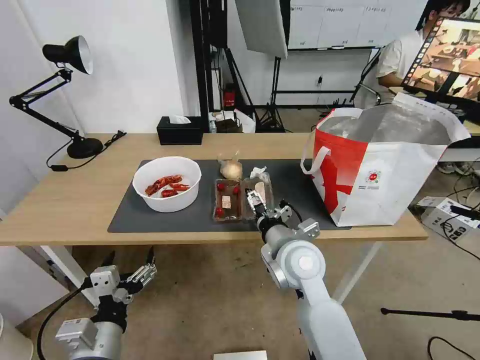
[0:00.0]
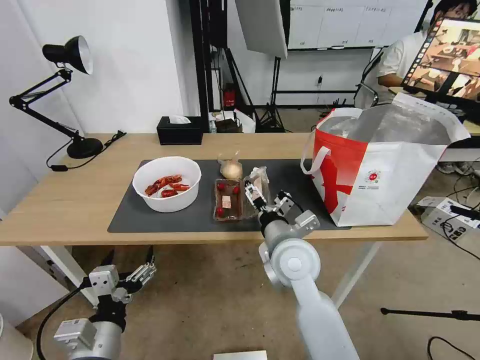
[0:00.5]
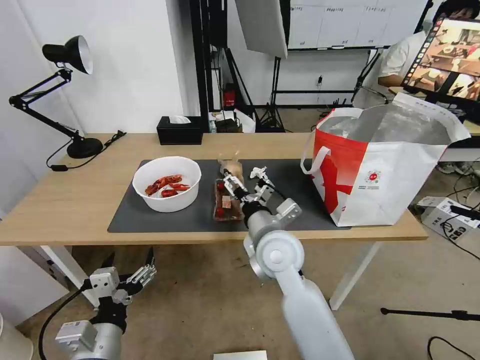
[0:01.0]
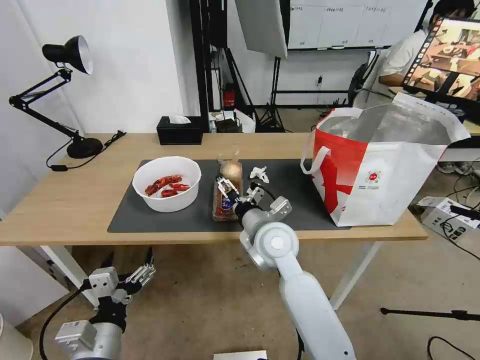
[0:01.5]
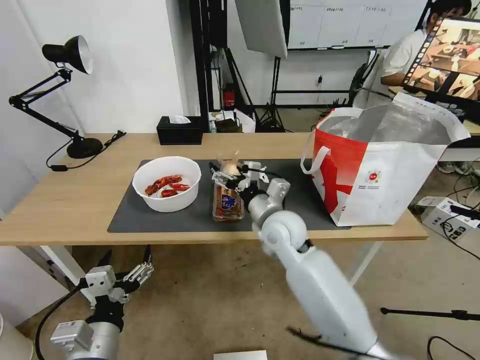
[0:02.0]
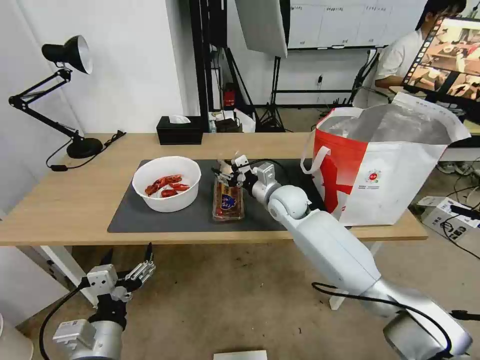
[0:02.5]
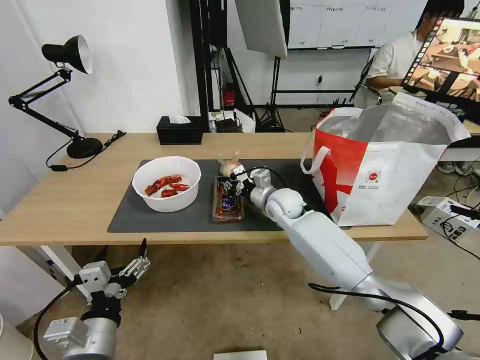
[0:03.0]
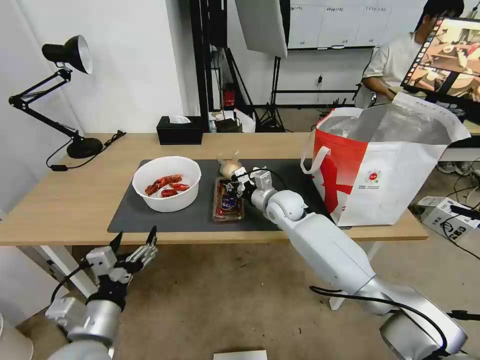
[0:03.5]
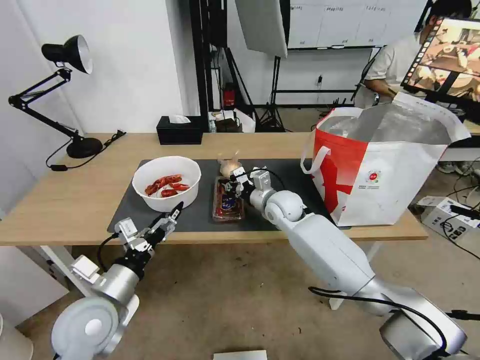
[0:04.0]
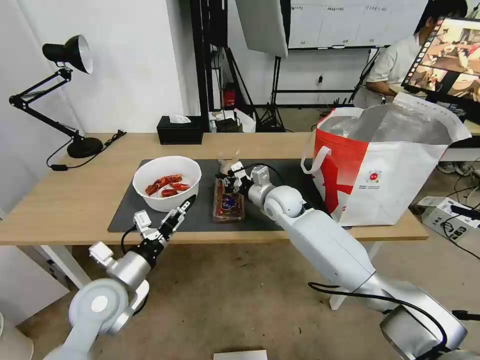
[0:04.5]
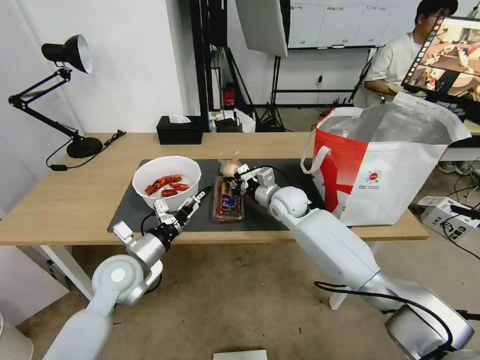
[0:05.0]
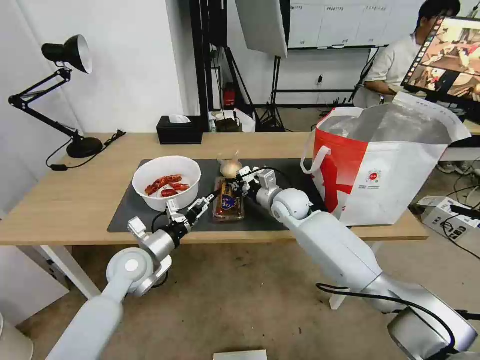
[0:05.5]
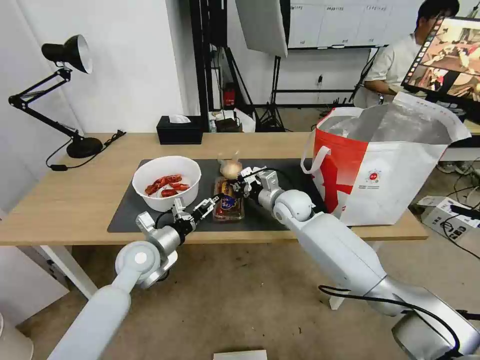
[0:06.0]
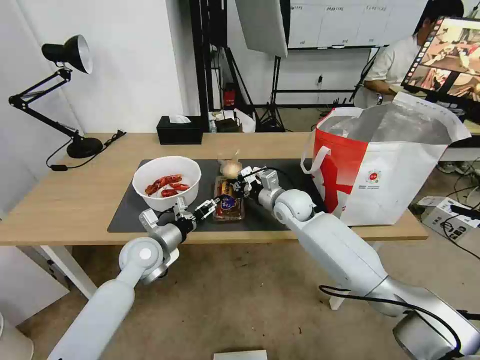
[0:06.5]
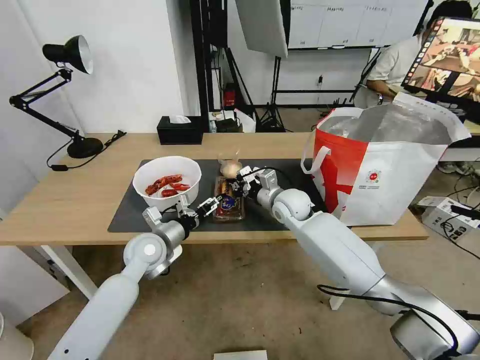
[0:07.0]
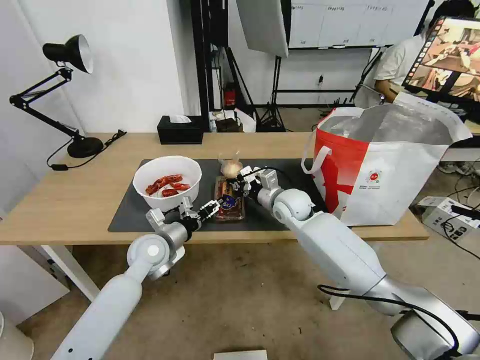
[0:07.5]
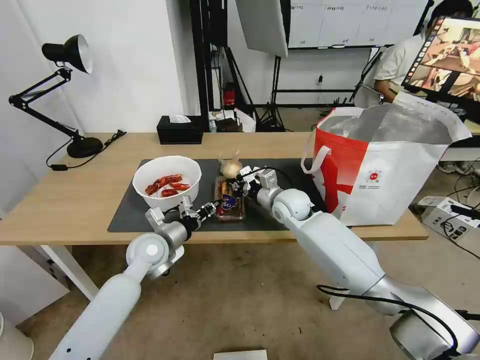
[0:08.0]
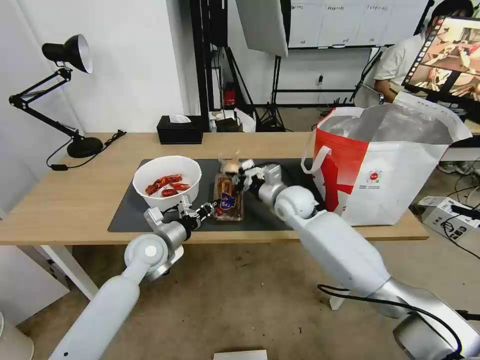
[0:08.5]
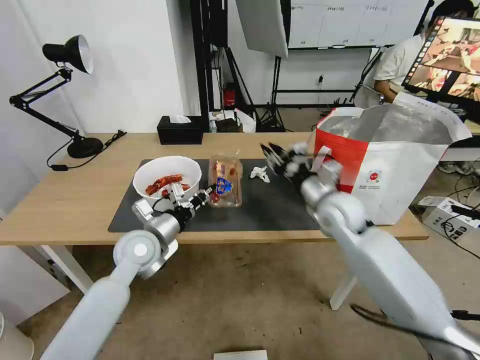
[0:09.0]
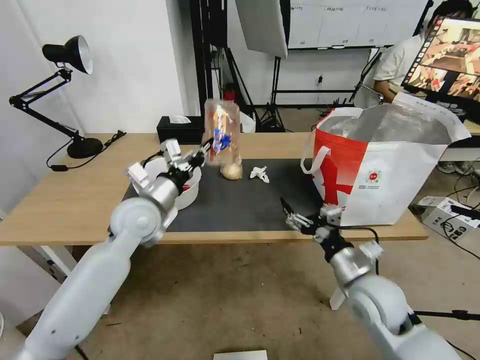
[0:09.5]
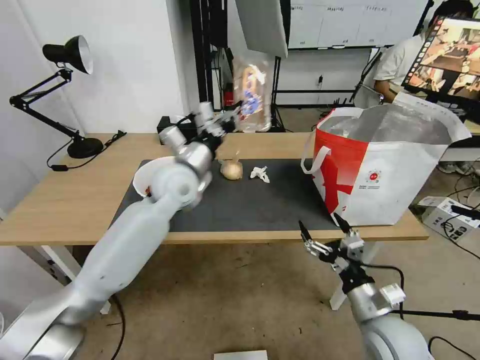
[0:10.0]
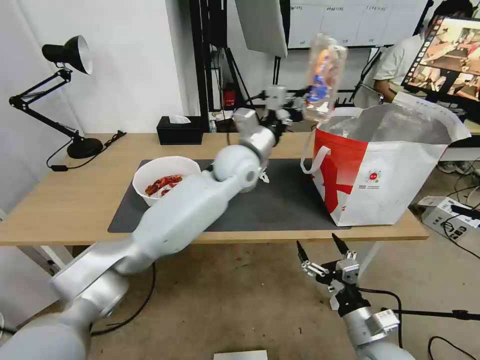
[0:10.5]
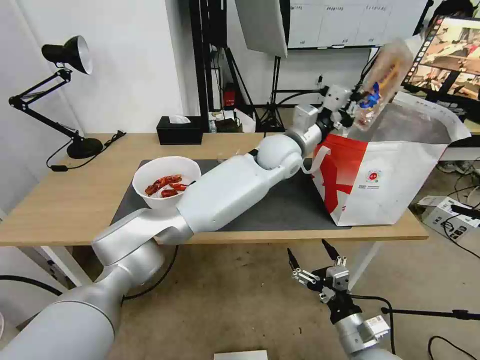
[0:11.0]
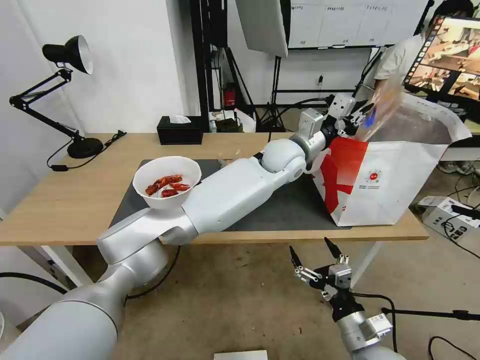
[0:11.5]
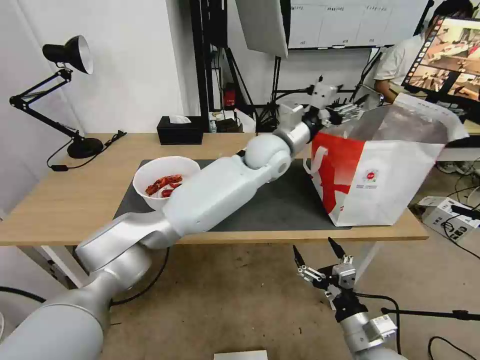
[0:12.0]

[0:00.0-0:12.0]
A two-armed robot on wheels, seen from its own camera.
Task of the whole recording: Pick up the trash from the table and place it into the takeout bag.
0:00.0 to 0:02.0: The right gripper goes about 5 cm forward.
0:02.0 to 0:04.0: The two grippers go roughly 10 cm forward. The right gripper closes its fingers.
0:04.0 to 0:06.0: The left gripper travels forward by about 15 cm.
0:06.0 to 0:08.0: The left gripper closes.
0:08.0 to 0:10.0: The right gripper heads backward and to the right, covering approximately 35 cm, and opens its fingers. The left gripper is displaced upward, to the right and forward by about 20 cm.
0:10.0 to 0:12.0: The right gripper moves some 5 cm. The left gripper heads to the right, covering some 20 cm, and opens.

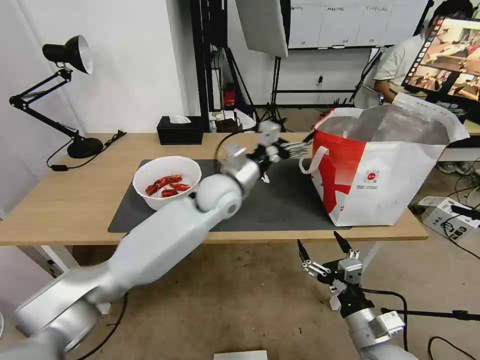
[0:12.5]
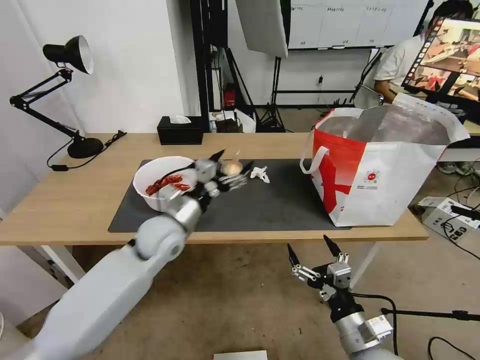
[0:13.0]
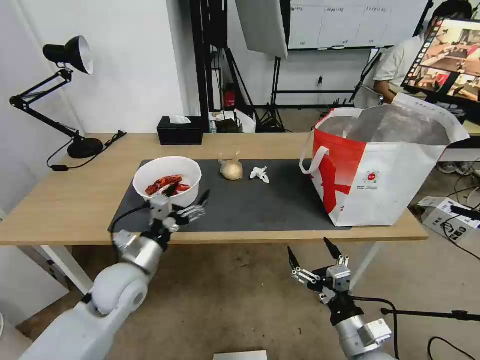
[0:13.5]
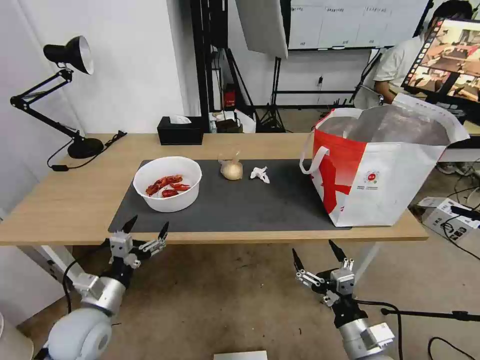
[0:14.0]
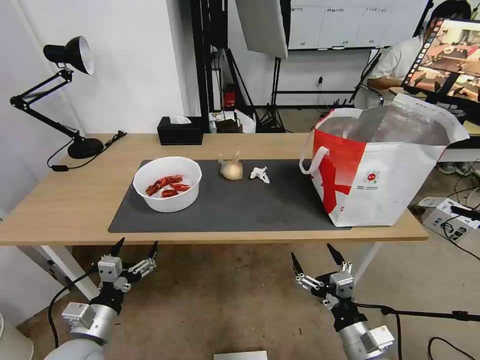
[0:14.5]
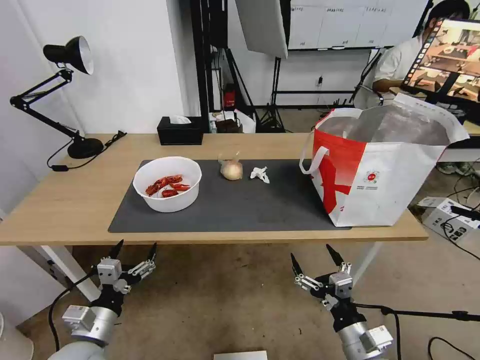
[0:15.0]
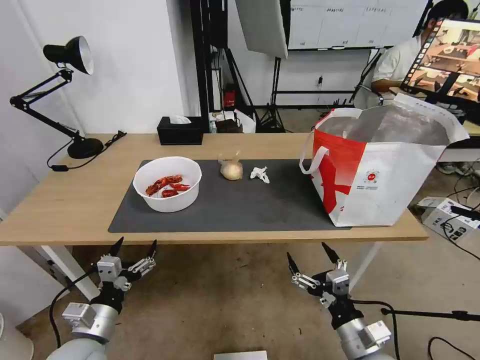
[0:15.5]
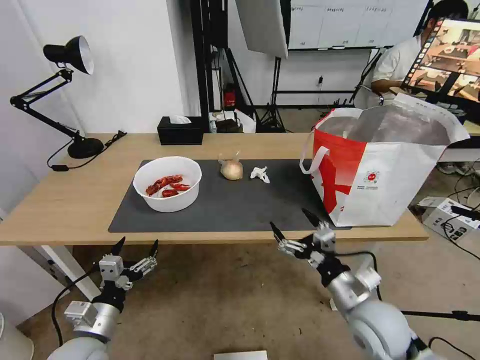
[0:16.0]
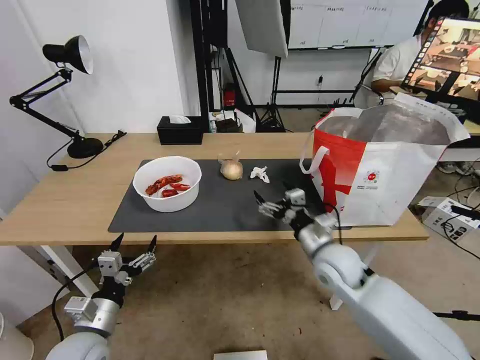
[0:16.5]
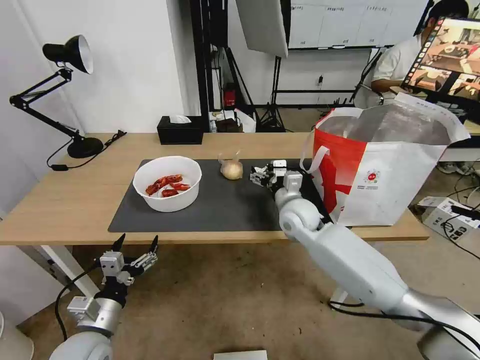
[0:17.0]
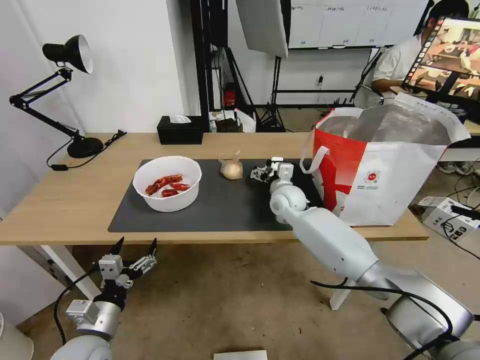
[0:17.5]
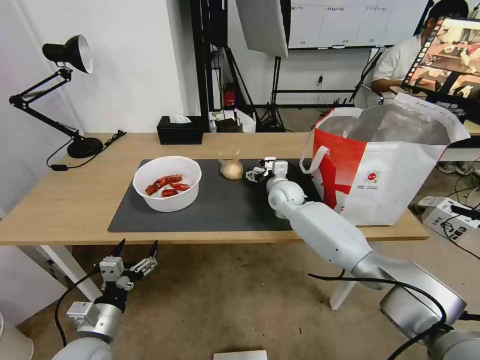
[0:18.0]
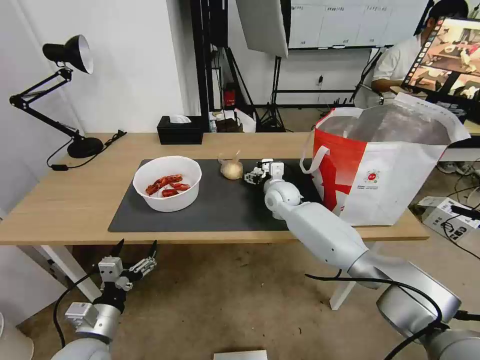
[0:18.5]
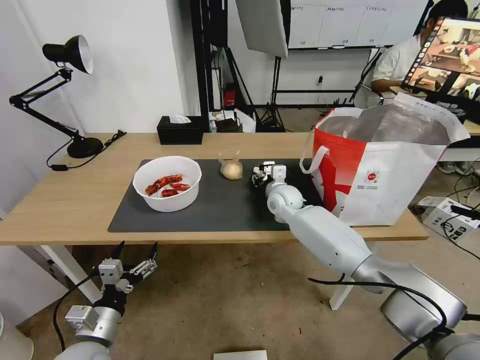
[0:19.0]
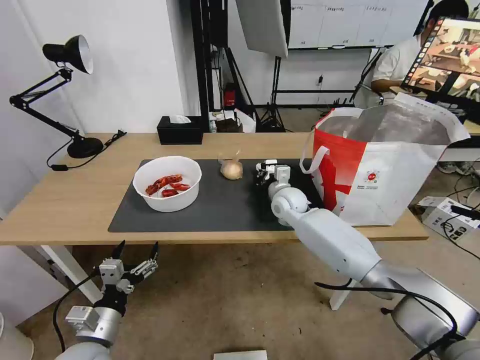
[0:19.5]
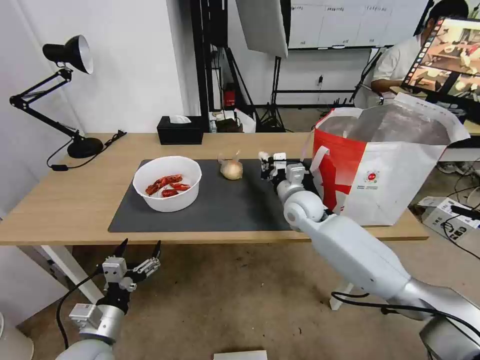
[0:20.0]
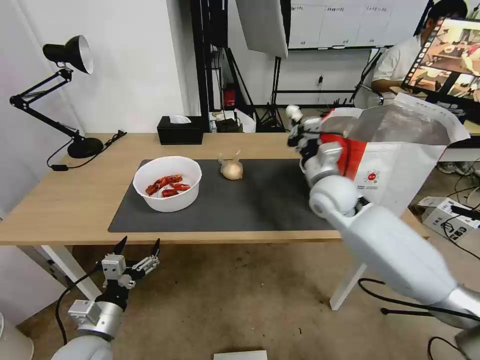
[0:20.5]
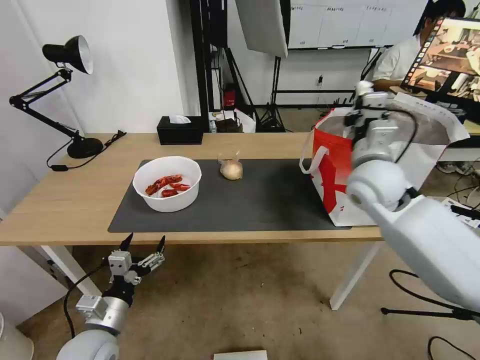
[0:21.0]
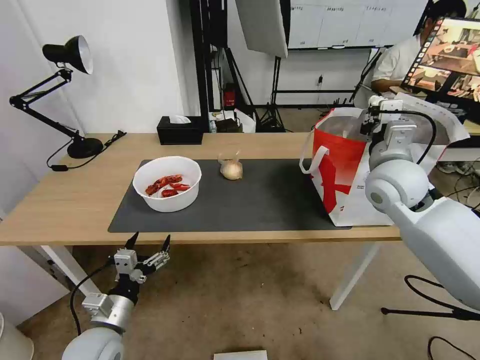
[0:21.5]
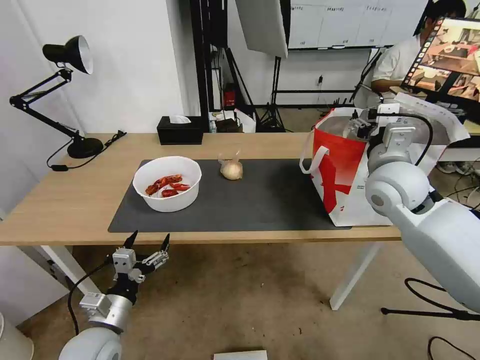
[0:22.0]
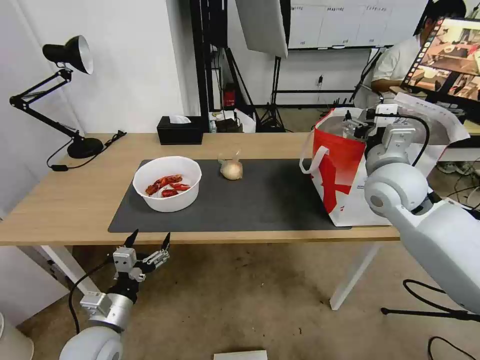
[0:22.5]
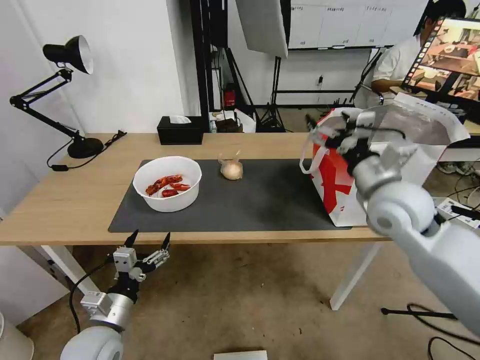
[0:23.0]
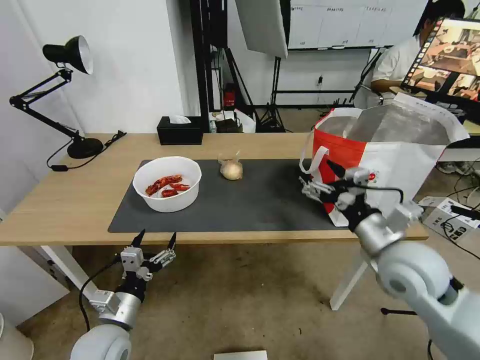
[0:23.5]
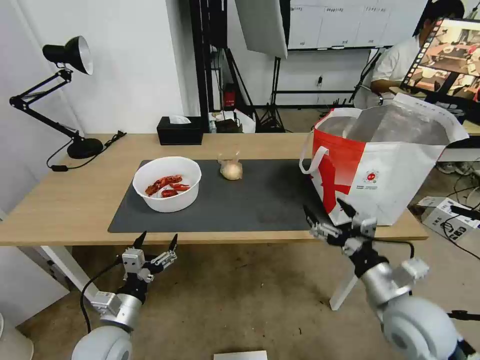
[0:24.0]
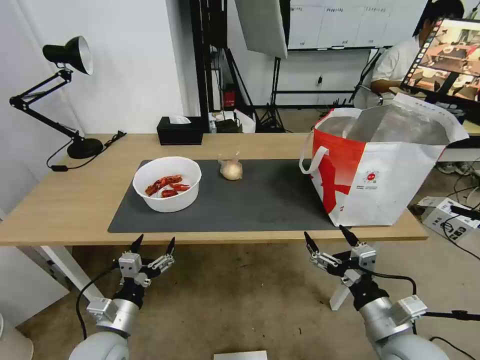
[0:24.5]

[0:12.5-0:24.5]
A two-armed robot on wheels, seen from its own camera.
Task of the whole recording: Pick up the trash from the table and place it into the takeout bag.
0:12.5 to 0:14.5: The left gripper travels backward, to the left and downward by about 40 cm.
0:14.5 to 0:16.5: The right gripper travels forward by roughly 20 cm.
0:16.5 to 0:18.5: The right gripper heads forward, covering roughly 20 cm.
0:18.5 to 0:20.5: The right gripper goes some 15 cm upward, backward and to the right, and closes up.
0:20.5 to 0:22.5: The right gripper goes roughly 10 cm to the right and upward, and opens its fingers.
0:22.5 to 0:24.5: The right gripper shifts some 30 cm backward and downward.

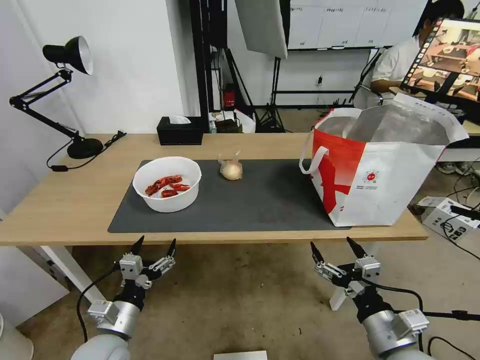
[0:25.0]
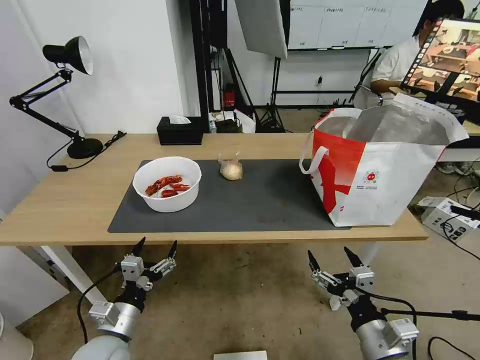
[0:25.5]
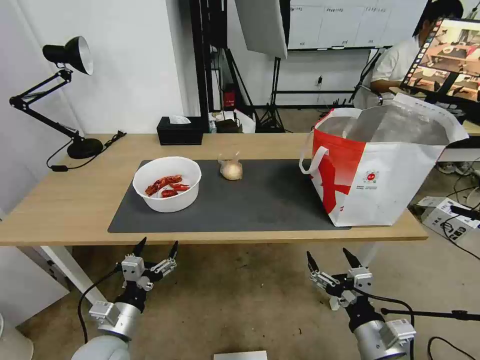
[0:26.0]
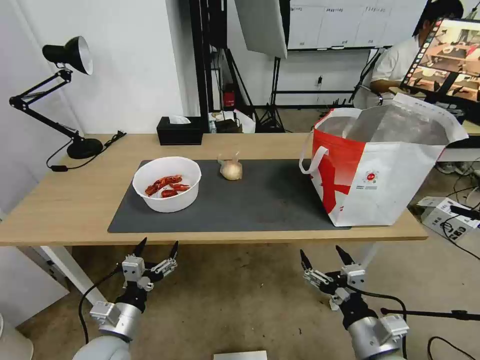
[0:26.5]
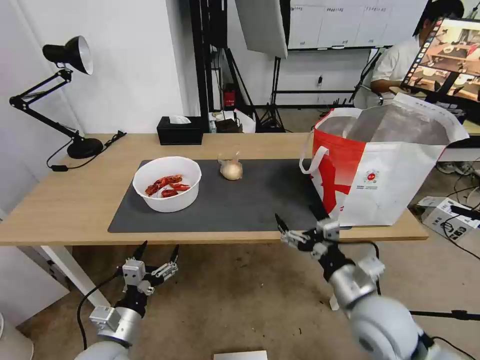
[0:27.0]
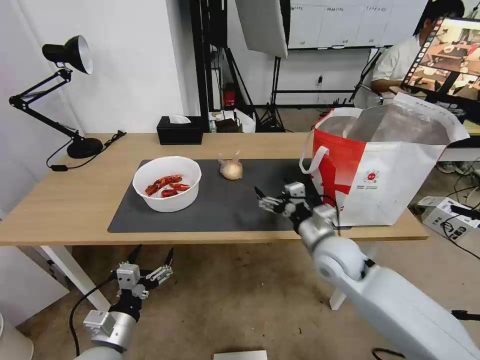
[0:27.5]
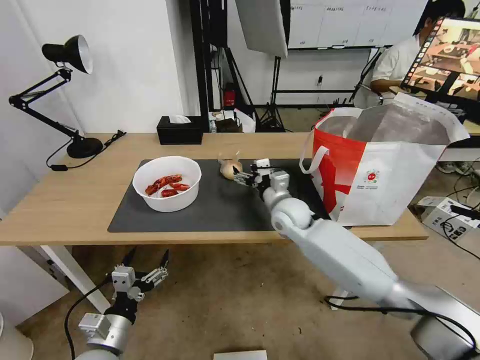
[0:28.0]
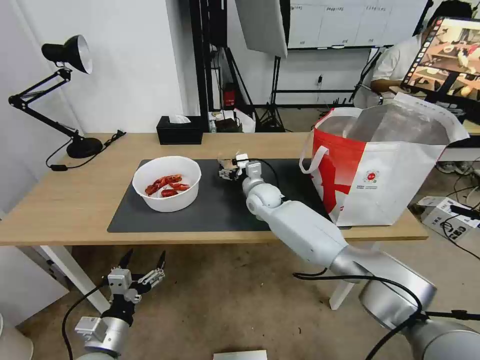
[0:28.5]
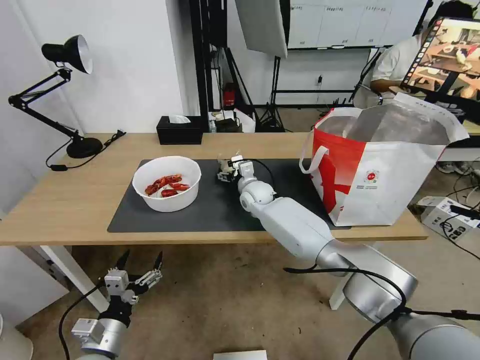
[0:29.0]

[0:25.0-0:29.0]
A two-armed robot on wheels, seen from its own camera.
Task of the whole recording: Pick up the trash from the table and place it into the takeout bag.
0:25.0 to 0:27.0: The right gripper travels forward by about 5 cm.
0:27.0 to 0:29.0: The right gripper moves forward and to the left, roughly 40 cm.
